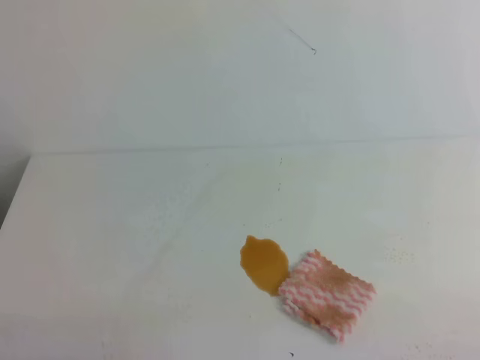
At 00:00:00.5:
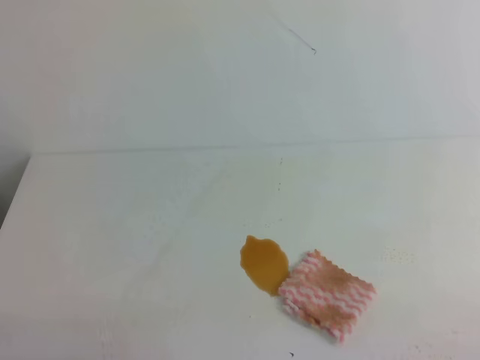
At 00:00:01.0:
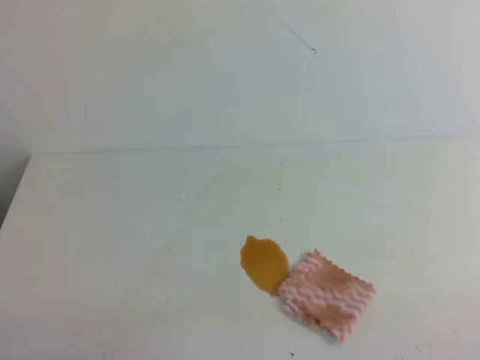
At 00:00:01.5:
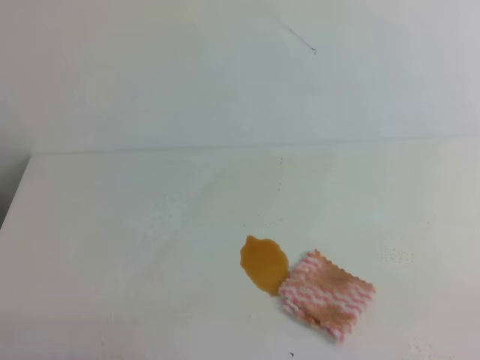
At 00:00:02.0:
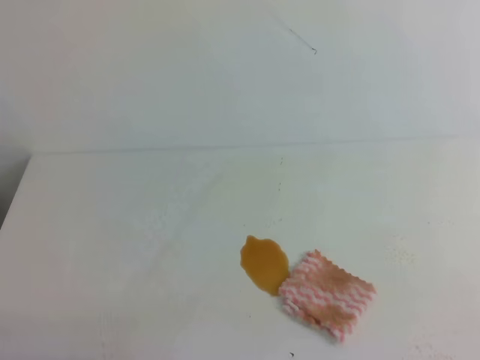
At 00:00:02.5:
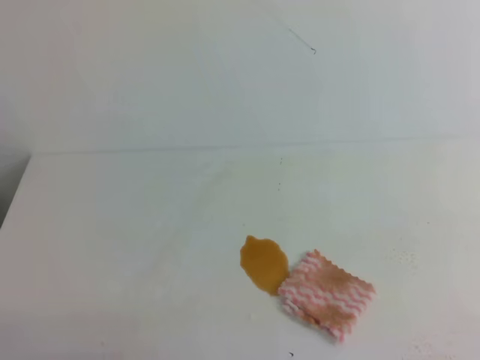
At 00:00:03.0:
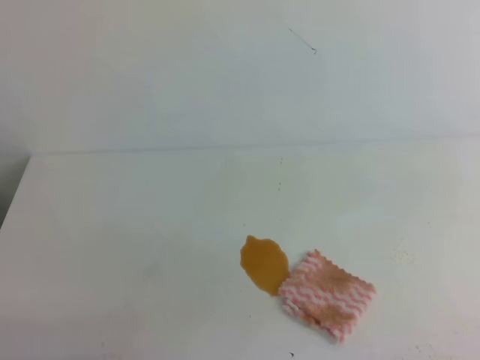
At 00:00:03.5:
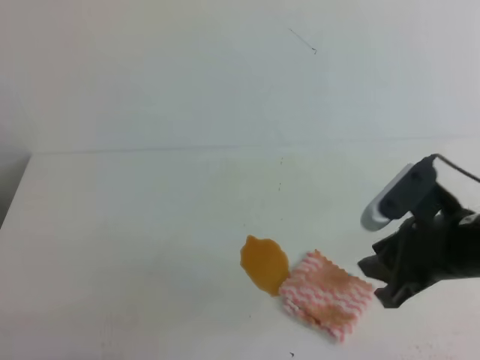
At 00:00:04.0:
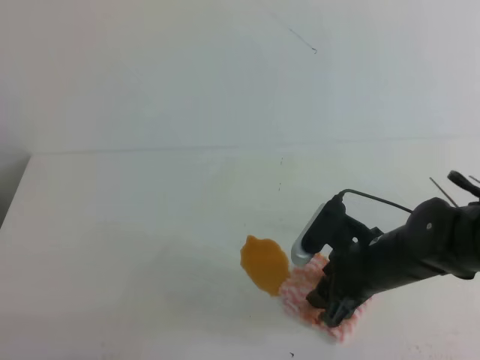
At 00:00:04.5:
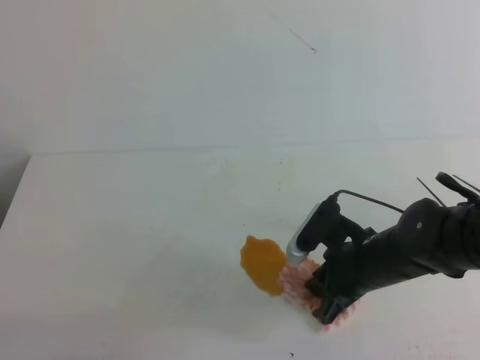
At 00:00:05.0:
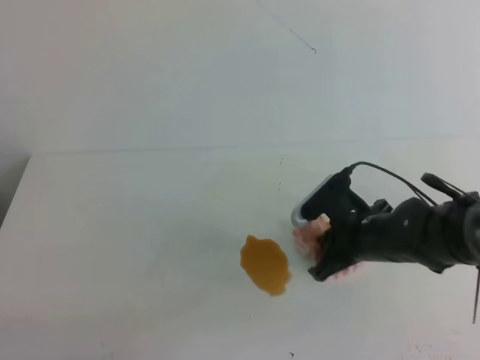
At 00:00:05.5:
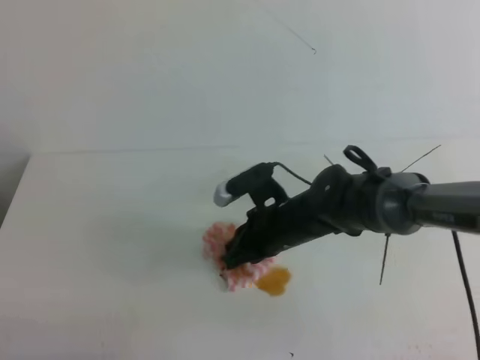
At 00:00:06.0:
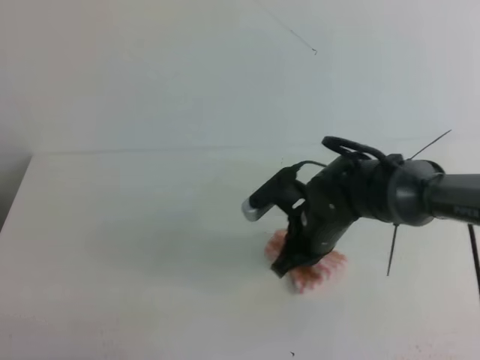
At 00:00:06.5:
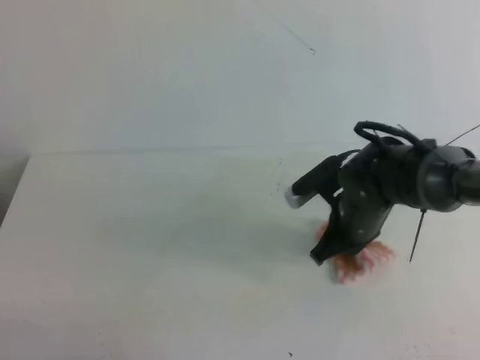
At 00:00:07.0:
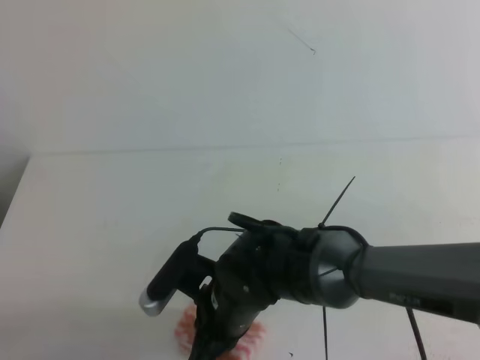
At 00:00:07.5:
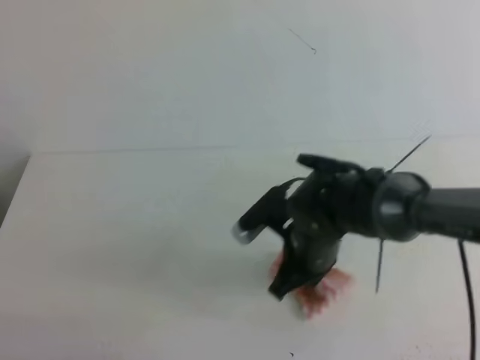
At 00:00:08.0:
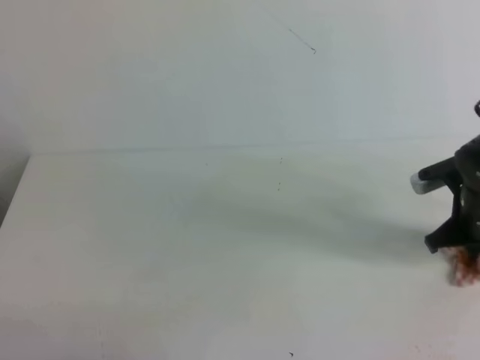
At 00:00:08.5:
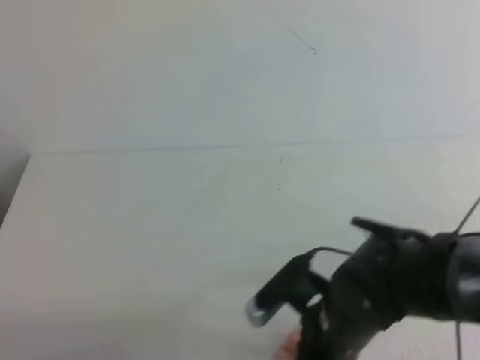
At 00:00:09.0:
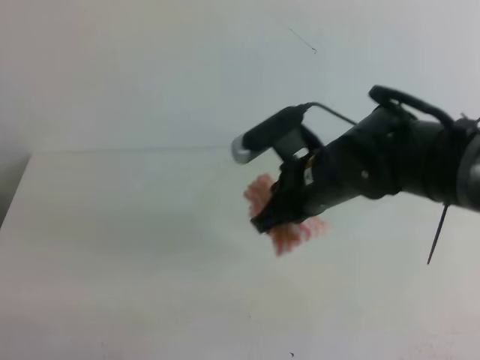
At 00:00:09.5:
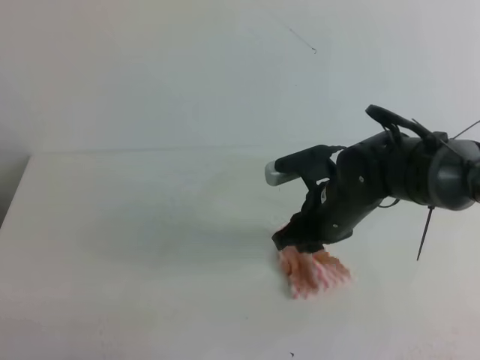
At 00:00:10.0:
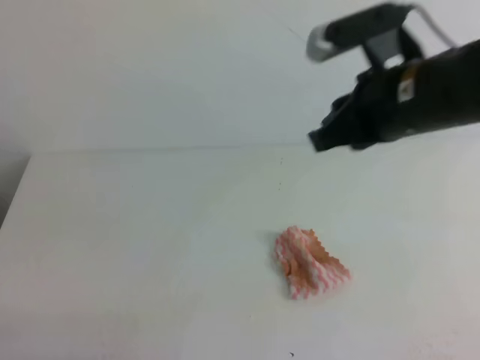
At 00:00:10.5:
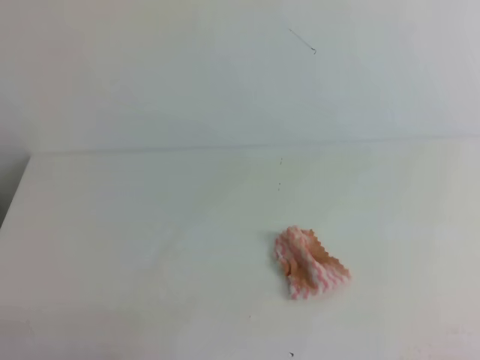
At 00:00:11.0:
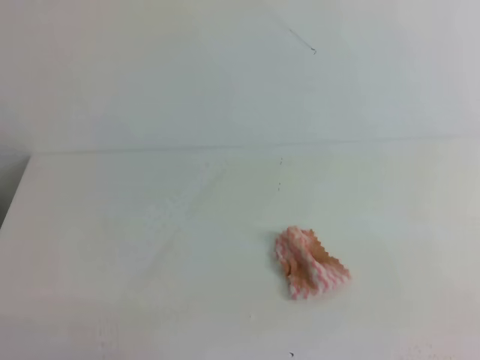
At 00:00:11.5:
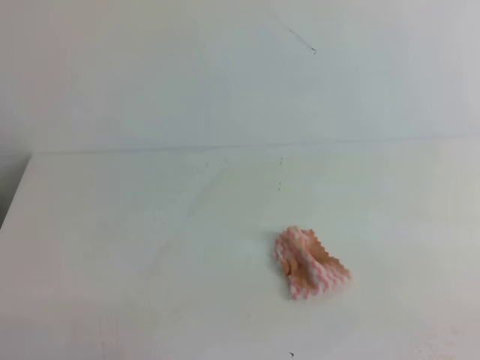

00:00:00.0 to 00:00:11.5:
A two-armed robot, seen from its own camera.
00:00:02.0 to 00:00:04.0: The right gripper moves forward, to the left and downward, some 35 cm, and opens up.
00:00:04.0 to 00:00:06.0: The right gripper shifts approximately 10 cm forward and to the left, and closes up.
00:00:06.0 to 00:00:07.5: The right gripper travels to the left and back again, about 10 cm each way.
00:00:07.5 to 00:00:09.5: The right gripper goes to the right and returns, about 20 cm each way, and opens up.
00:00:09.5 to 00:00:11.5: The right gripper shifts approximately 35 cm backward and to the right, and closes.

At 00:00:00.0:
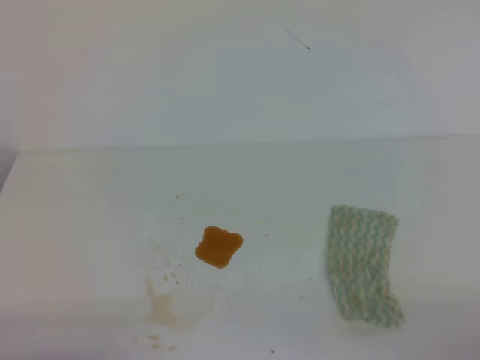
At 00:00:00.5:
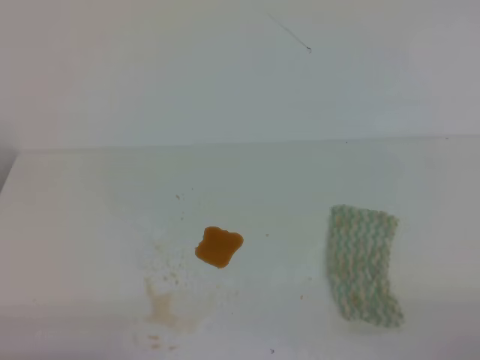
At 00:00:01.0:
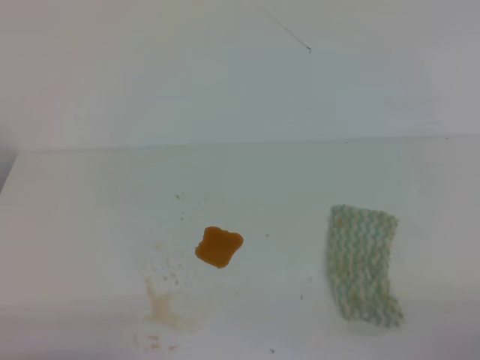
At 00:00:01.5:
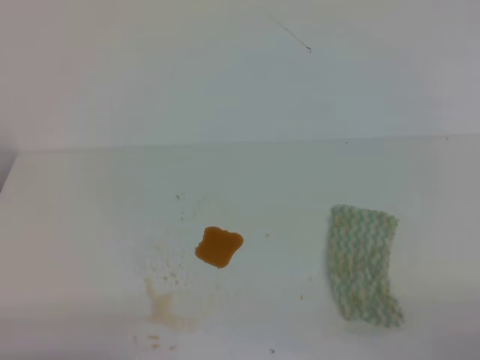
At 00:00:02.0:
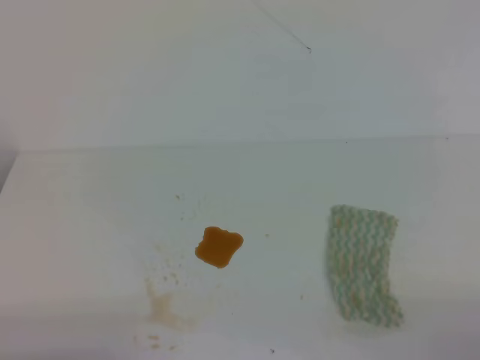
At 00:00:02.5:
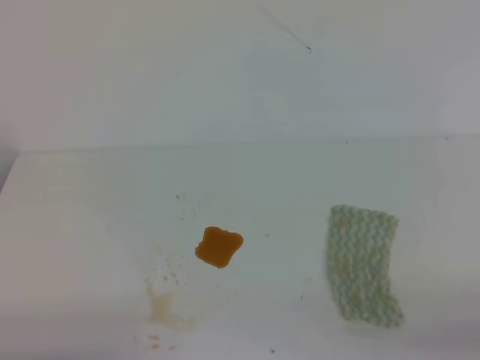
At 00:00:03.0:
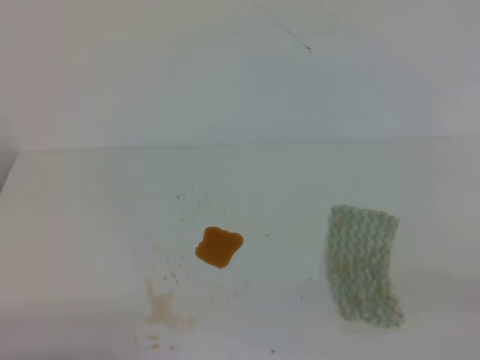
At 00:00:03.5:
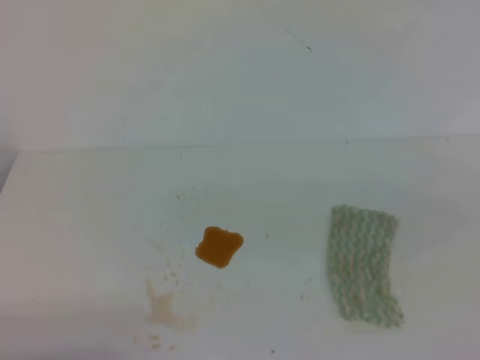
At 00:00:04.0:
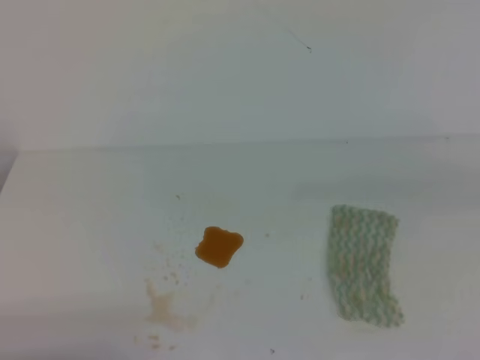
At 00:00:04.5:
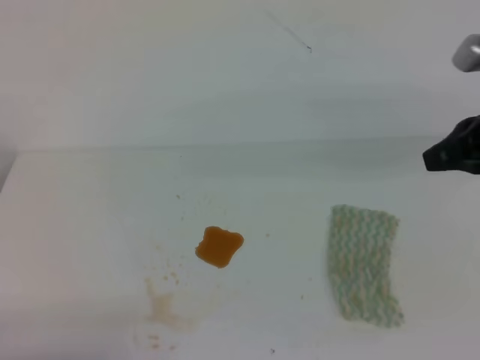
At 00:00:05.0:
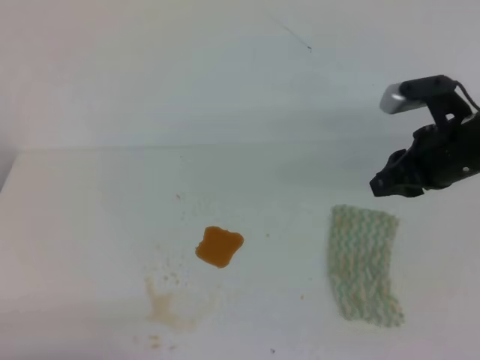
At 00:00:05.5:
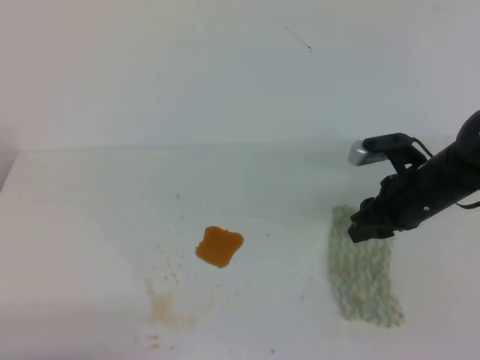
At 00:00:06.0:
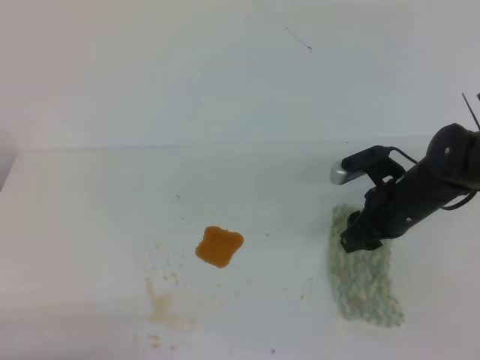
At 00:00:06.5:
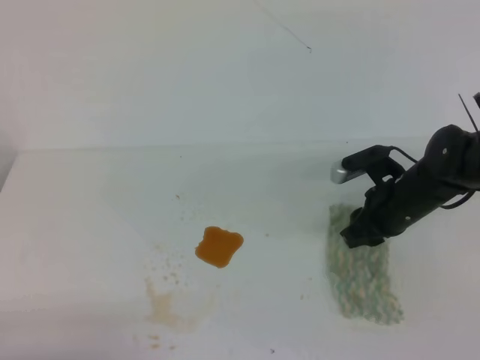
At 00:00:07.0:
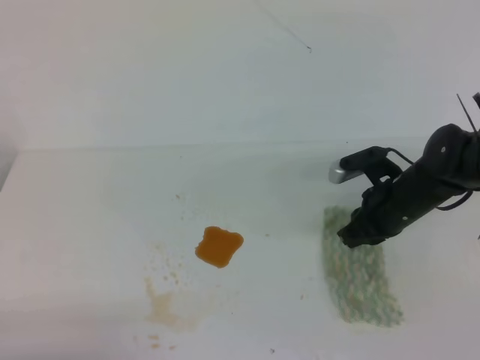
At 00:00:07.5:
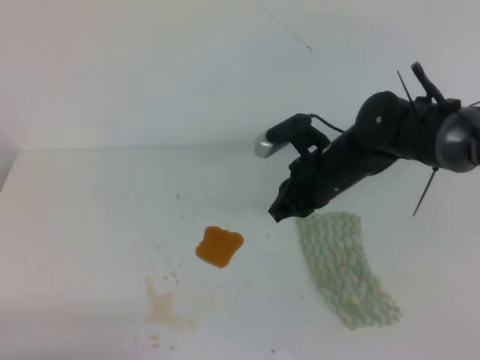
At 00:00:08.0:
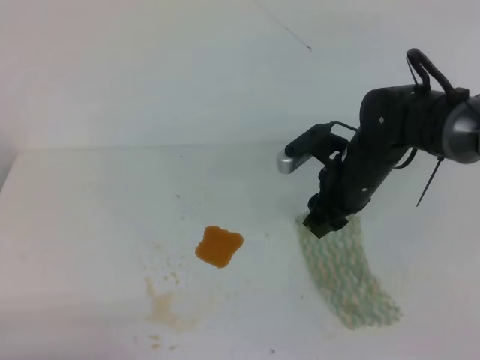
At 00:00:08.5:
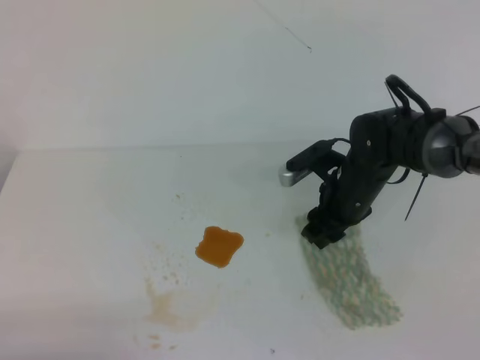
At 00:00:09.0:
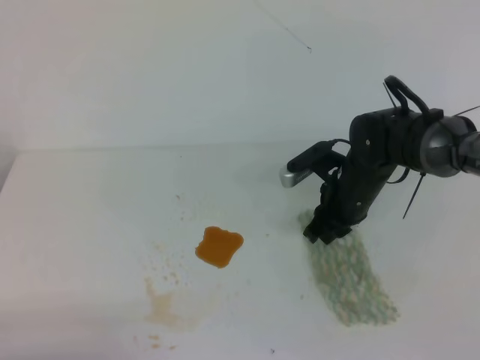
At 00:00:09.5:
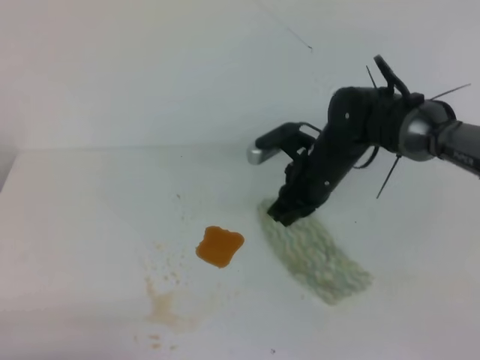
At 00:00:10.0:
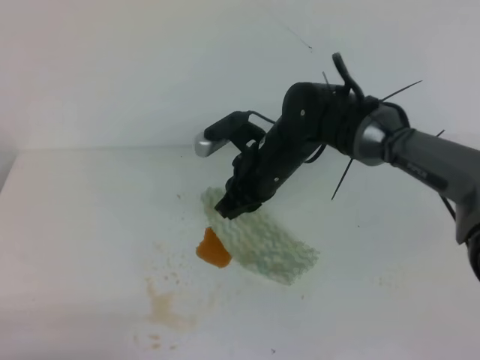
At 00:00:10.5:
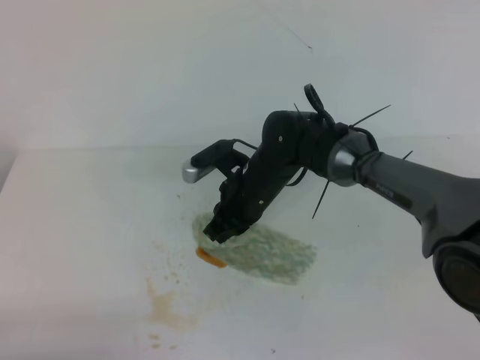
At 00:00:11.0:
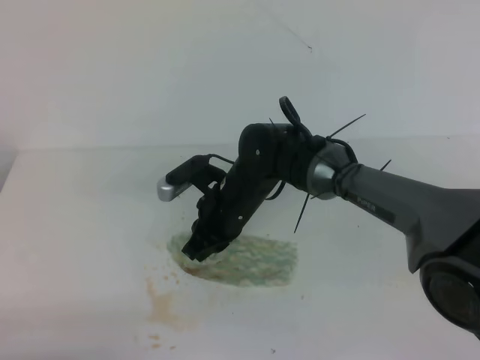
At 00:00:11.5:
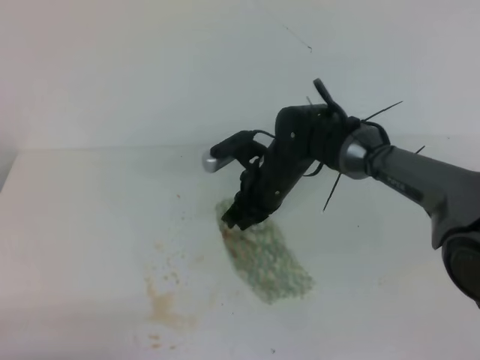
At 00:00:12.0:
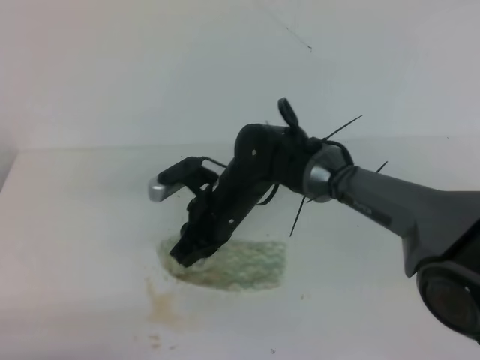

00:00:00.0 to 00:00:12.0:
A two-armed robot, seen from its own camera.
00:00:00.0 to 00:00:02.0: Both grippers stay about where they are.
00:00:04.0 to 00:00:06.0: The right gripper is displaced downward, forward and to the left by roughly 30 cm, and opens its fingers.
00:00:06.0 to 00:00:08.0: The right gripper goes roughly 5 cm to the left, and closes, then opens again.
00:00:08.0 to 00:00:10.0: The right gripper is displaced to the left by some 10 cm, and closes up.
00:00:10.0 to 00:00:12.0: The right gripper swings left and right, roughly 5 cm each way, with 2 reversals.

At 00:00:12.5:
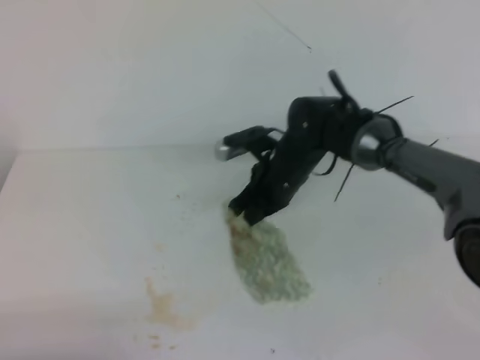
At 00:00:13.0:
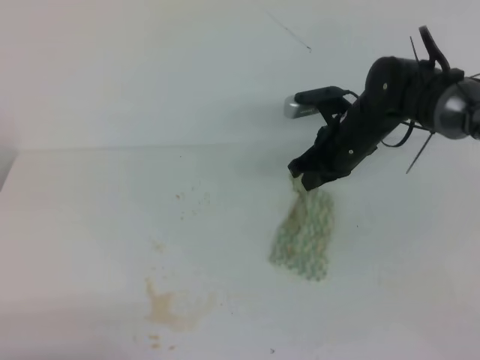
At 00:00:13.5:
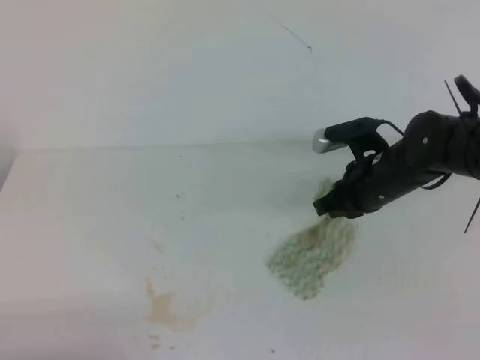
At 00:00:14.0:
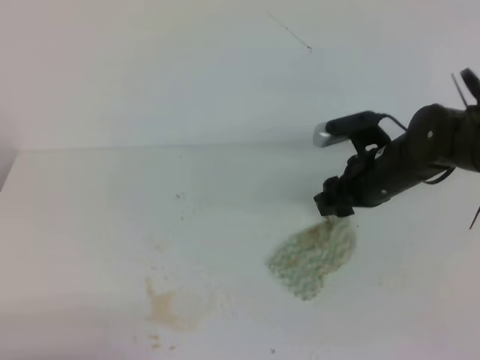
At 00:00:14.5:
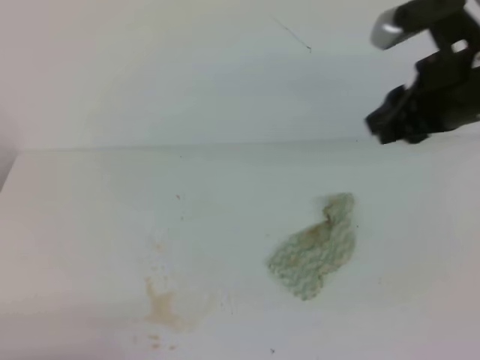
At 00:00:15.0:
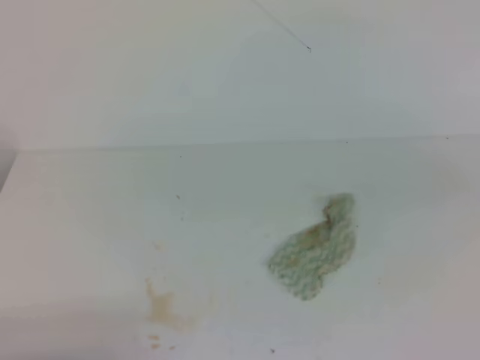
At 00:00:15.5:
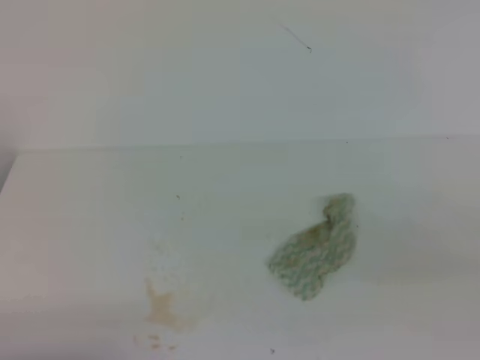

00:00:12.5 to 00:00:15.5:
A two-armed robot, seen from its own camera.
00:00:12.5 to 00:00:14.0: The right gripper is displaced to the right by about 10 cm, and opens its fingers.
00:00:14.0 to 00:00:15.5: The right gripper goes about 30 cm backward and to the right, and closes.
